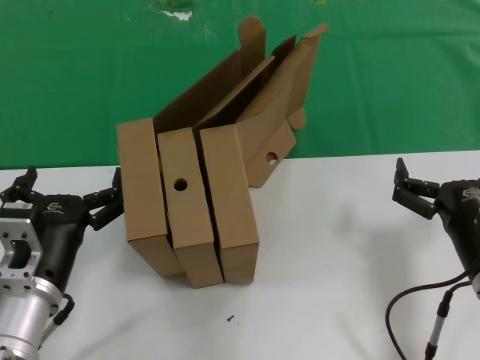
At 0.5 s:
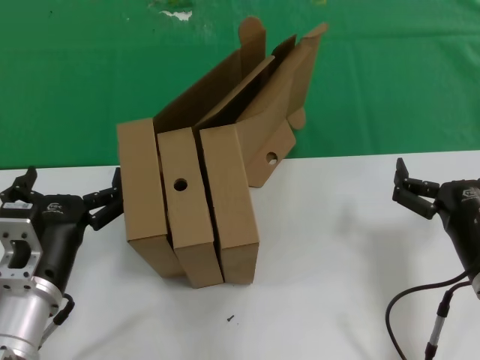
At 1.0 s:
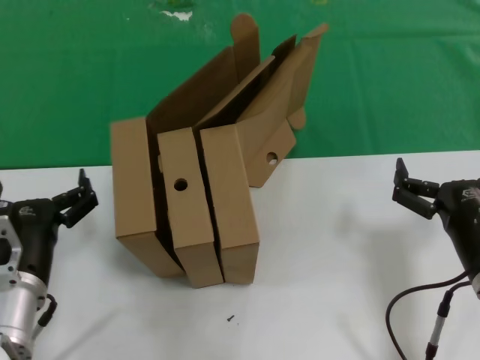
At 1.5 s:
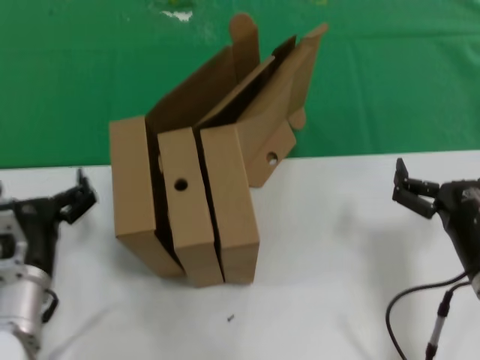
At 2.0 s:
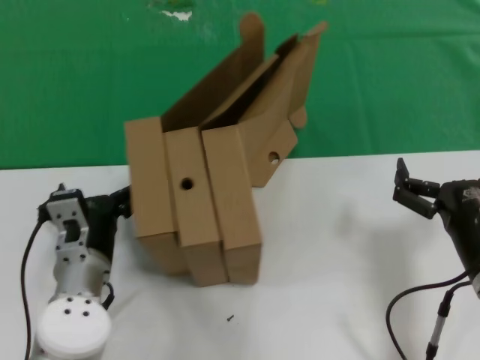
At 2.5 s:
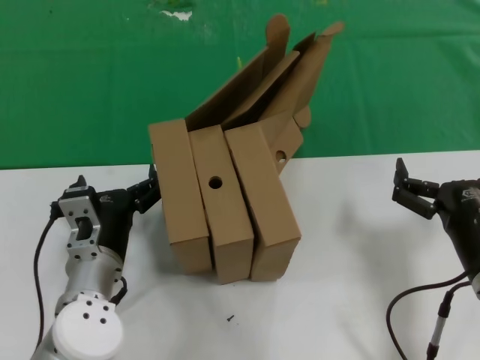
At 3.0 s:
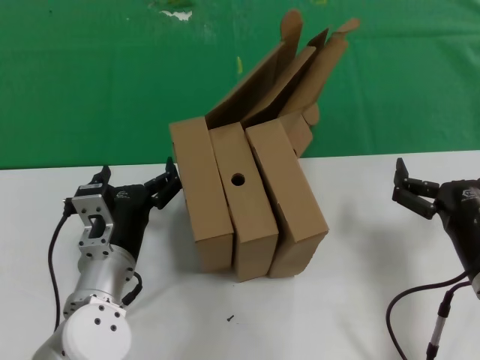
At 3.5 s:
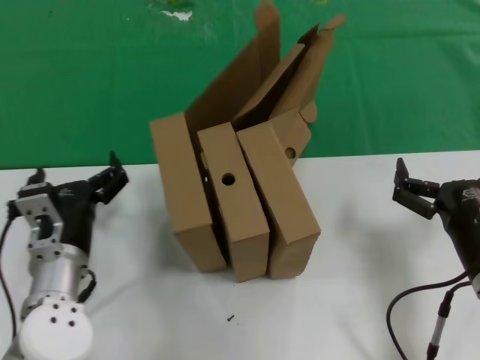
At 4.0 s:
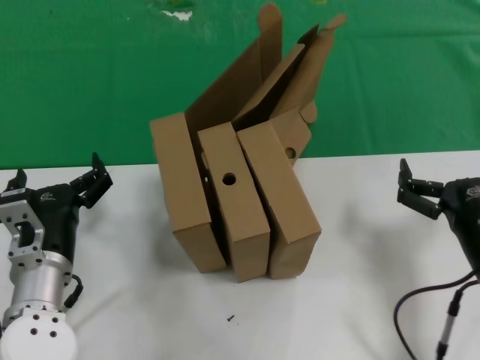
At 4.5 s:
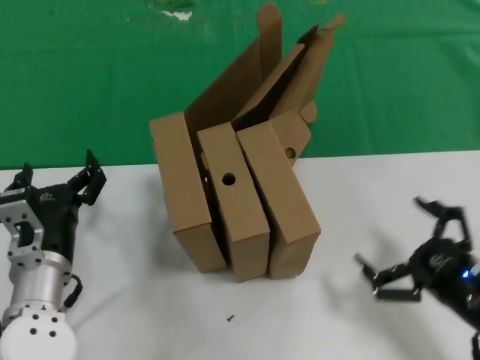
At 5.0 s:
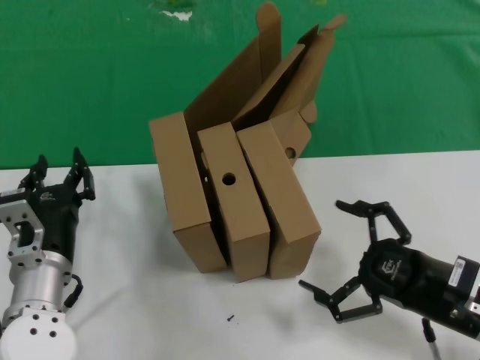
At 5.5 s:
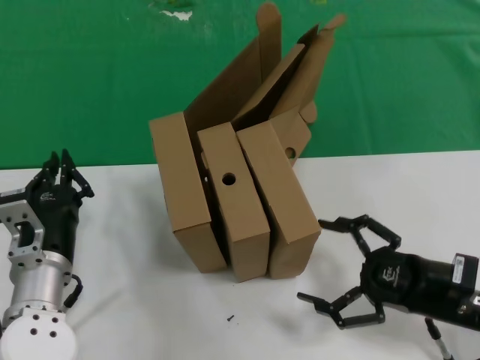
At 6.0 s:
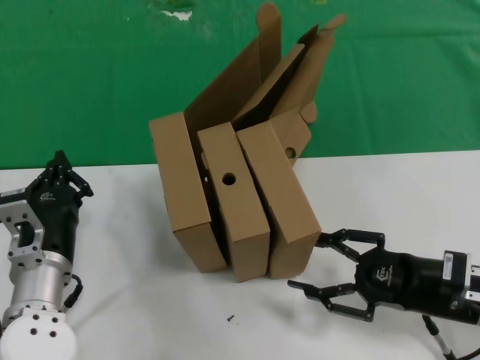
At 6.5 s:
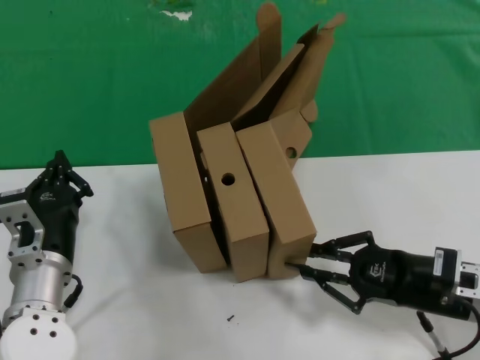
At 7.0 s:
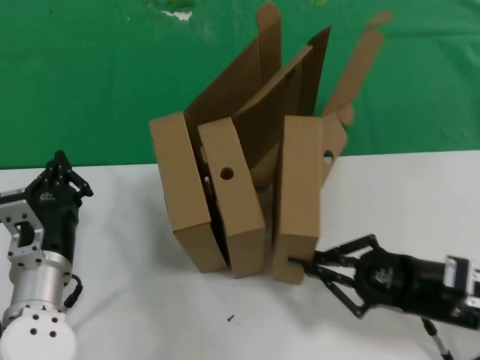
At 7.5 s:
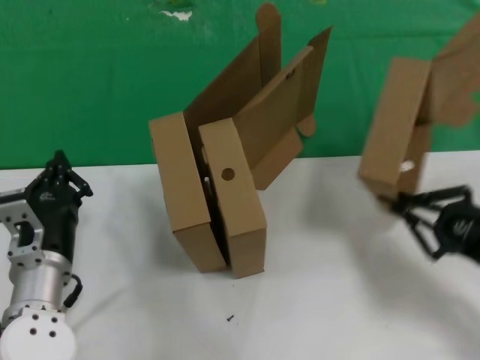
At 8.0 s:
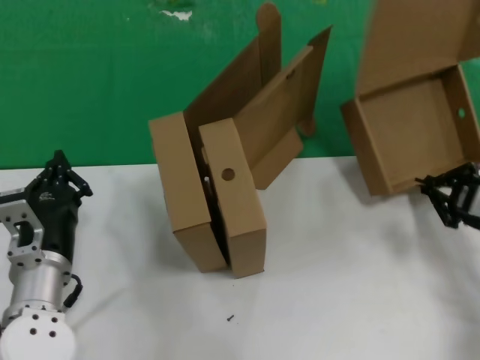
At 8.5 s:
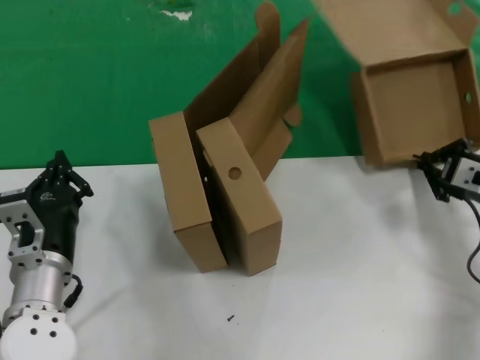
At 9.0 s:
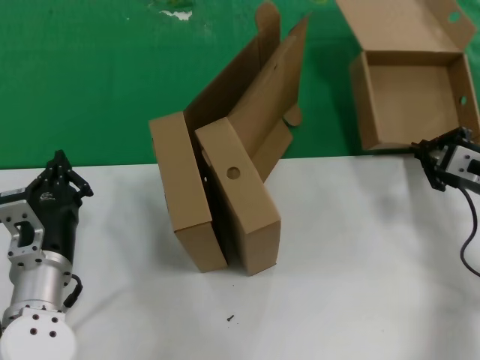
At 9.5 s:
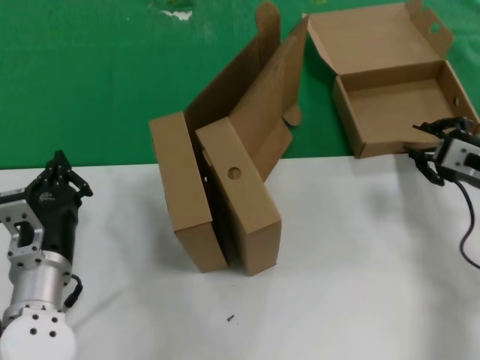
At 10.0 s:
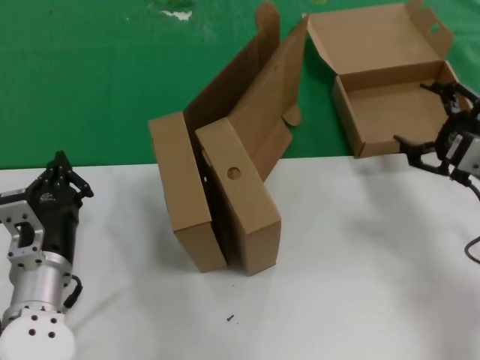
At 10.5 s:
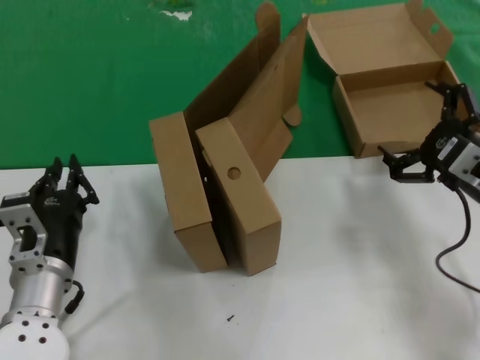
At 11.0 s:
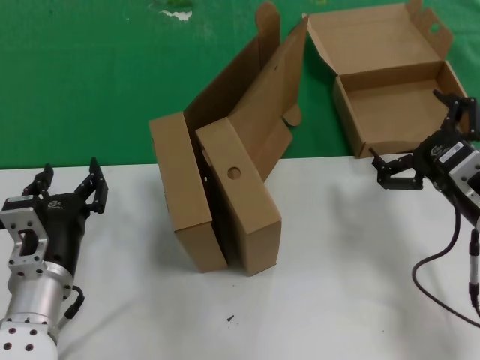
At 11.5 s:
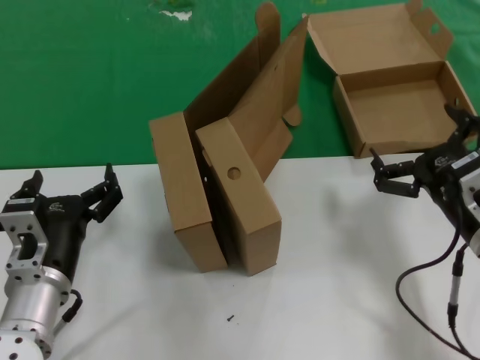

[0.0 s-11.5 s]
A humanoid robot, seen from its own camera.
Task of the whole recording: pick up the paper box and put it at the back.
Step, 0.0 to 6.5 s: Grasp the paper box.
Step, 7.0 to 9.5 s: Place the paper box on the table.
0.0 to 2.0 s: The left hand moves forward and downward, roughly 10 cm.
4.0 to 6.0 s: The right hand goes roughly 10 cm to the right and forward.
6.0 to 7.5 s: The right hand moves upward, about 5 cm.
7.5 to 9.5 s: The right hand heads forward, covering roughly 15 cm.
9.5 to 11.5 s: The right hand moves backward and to the left, some 15 cm.
